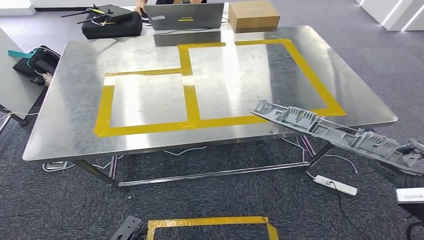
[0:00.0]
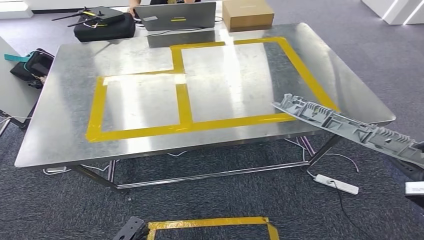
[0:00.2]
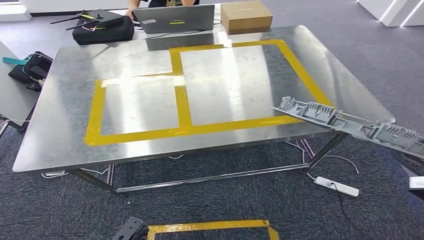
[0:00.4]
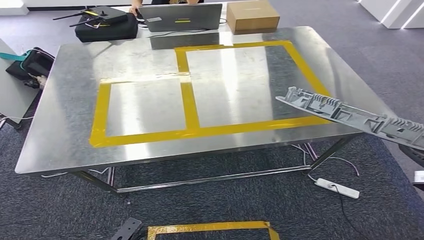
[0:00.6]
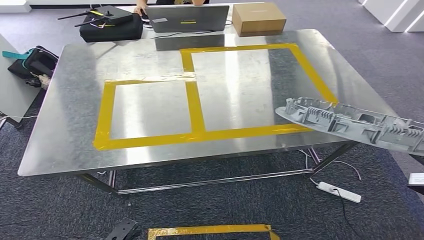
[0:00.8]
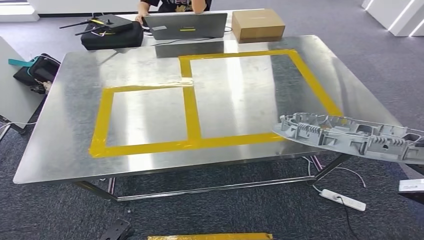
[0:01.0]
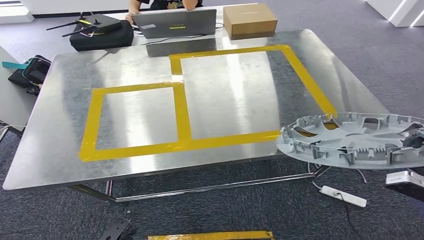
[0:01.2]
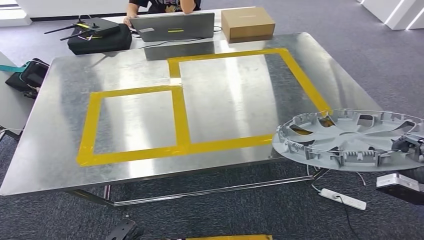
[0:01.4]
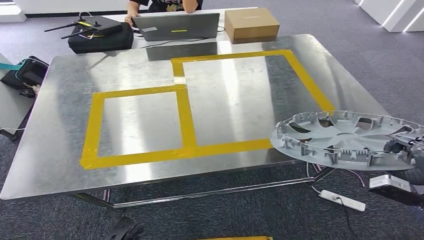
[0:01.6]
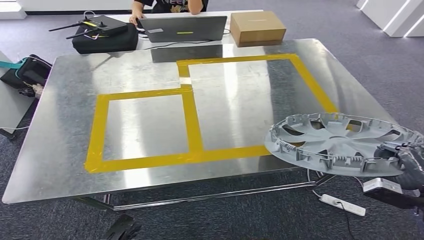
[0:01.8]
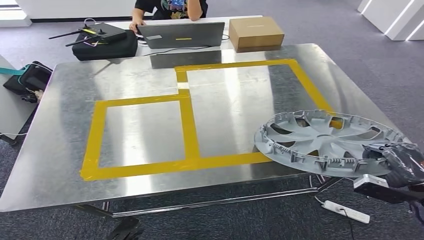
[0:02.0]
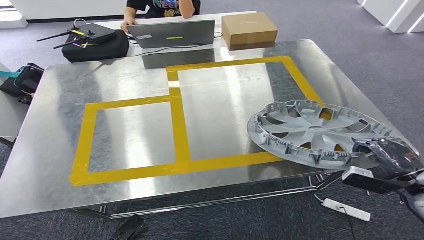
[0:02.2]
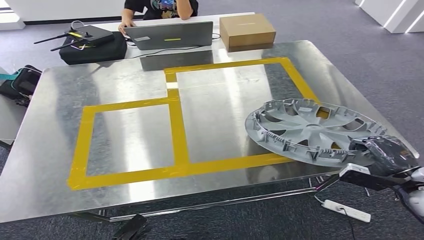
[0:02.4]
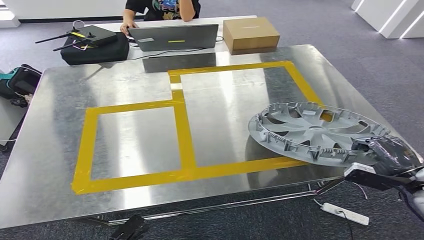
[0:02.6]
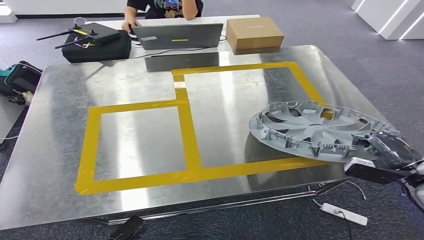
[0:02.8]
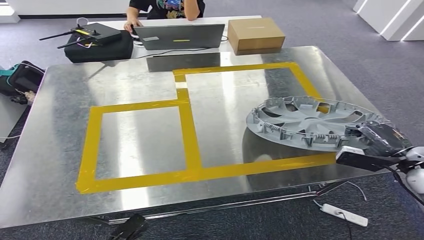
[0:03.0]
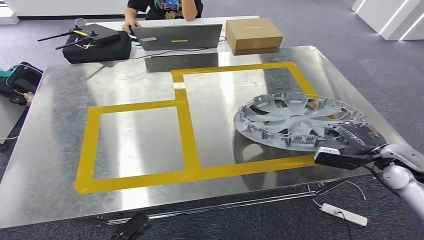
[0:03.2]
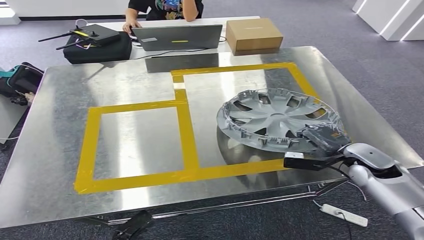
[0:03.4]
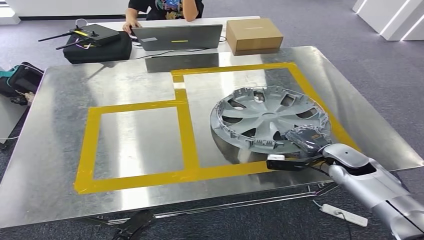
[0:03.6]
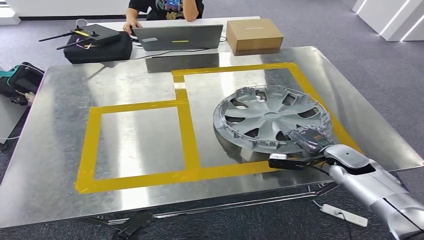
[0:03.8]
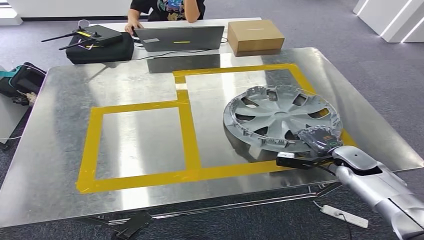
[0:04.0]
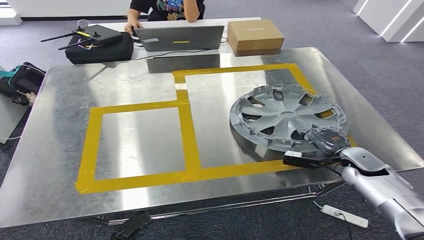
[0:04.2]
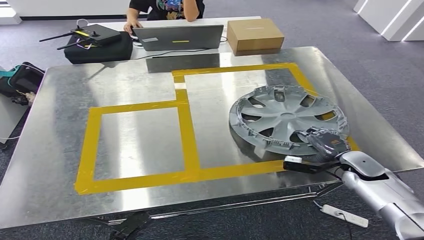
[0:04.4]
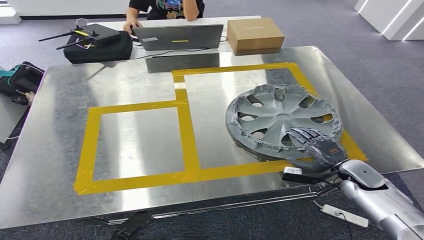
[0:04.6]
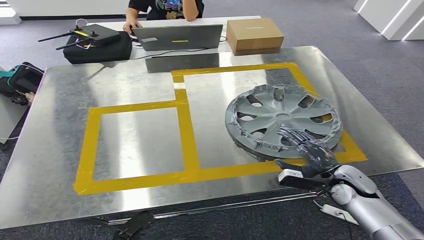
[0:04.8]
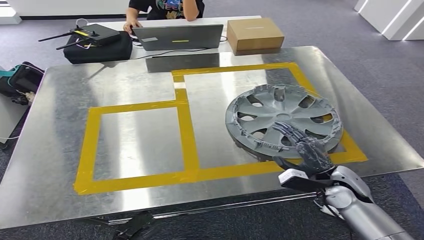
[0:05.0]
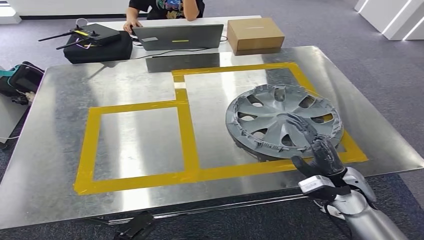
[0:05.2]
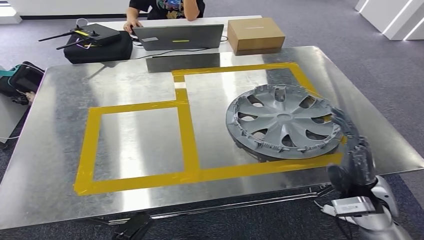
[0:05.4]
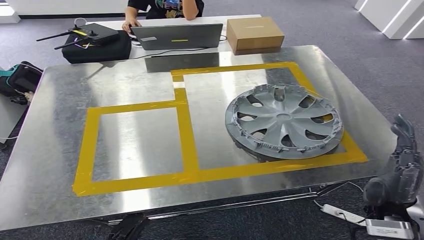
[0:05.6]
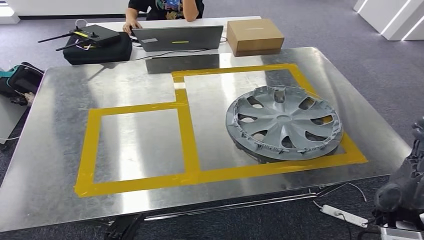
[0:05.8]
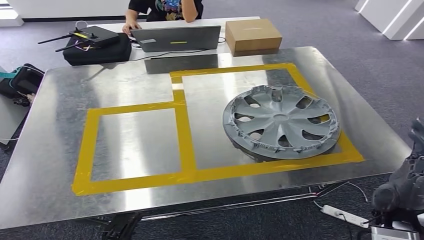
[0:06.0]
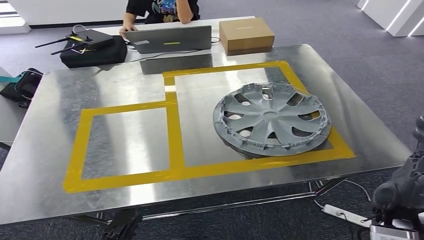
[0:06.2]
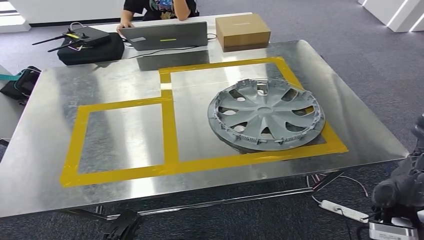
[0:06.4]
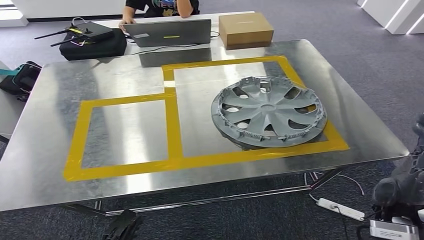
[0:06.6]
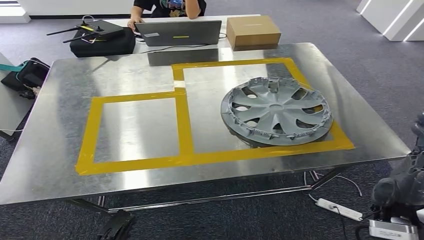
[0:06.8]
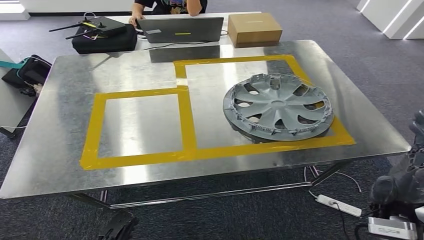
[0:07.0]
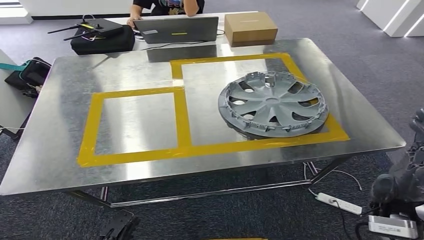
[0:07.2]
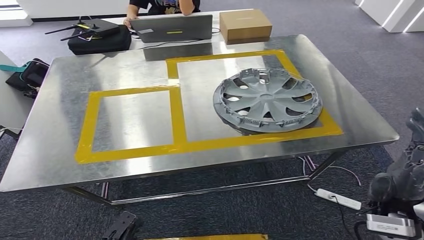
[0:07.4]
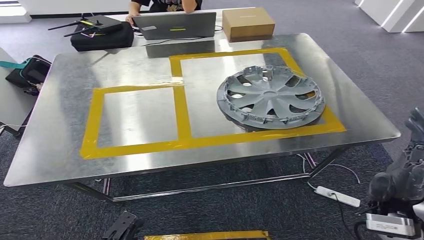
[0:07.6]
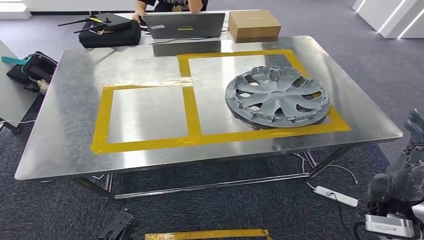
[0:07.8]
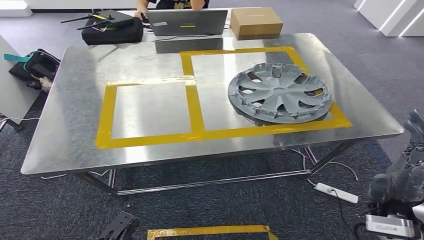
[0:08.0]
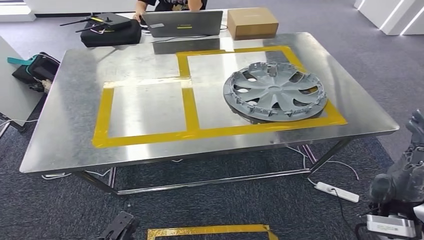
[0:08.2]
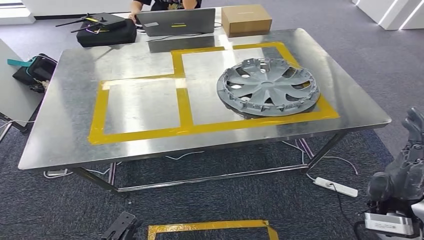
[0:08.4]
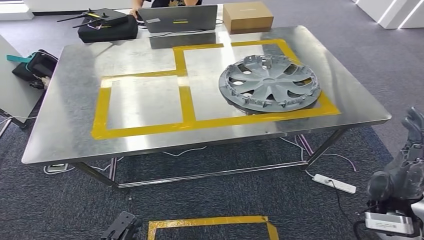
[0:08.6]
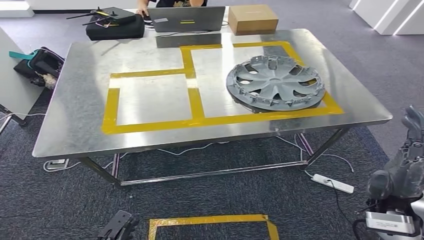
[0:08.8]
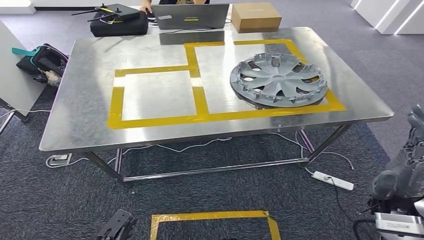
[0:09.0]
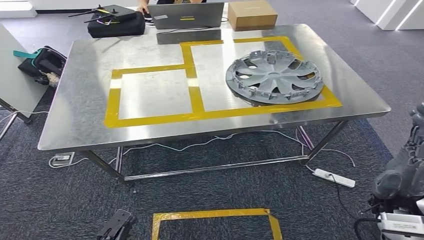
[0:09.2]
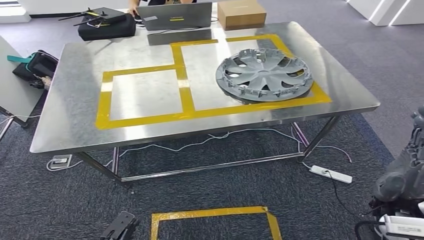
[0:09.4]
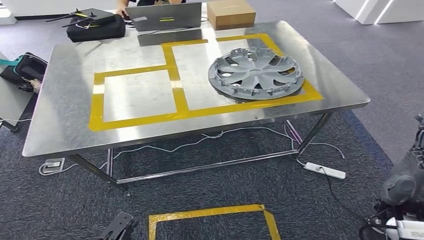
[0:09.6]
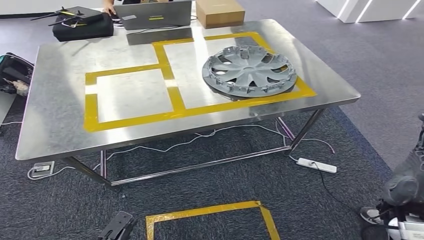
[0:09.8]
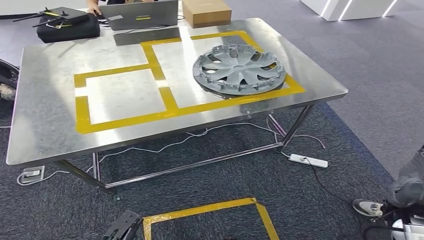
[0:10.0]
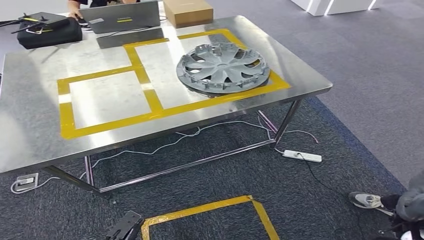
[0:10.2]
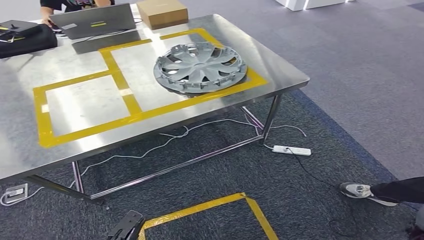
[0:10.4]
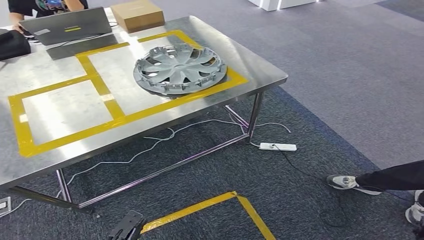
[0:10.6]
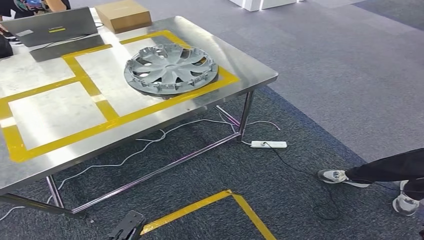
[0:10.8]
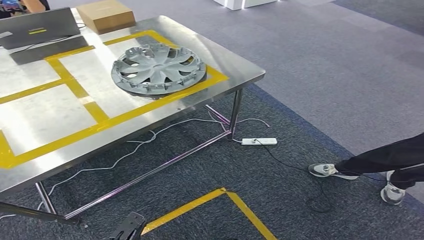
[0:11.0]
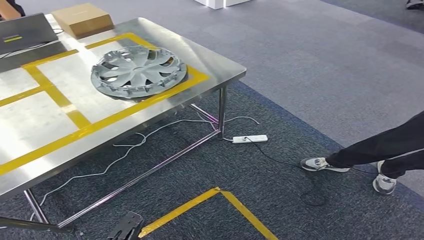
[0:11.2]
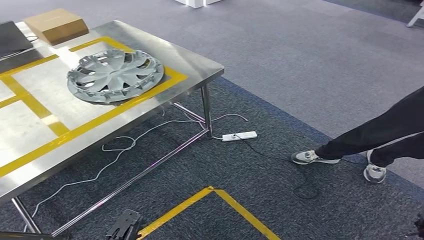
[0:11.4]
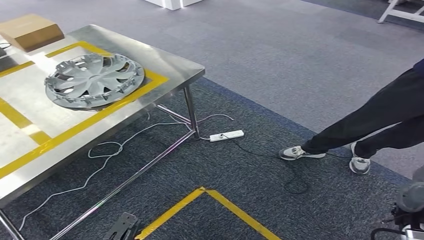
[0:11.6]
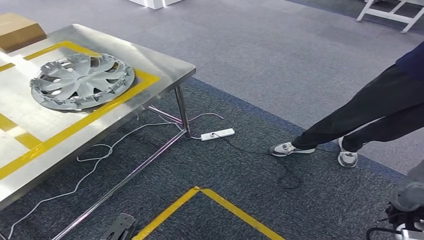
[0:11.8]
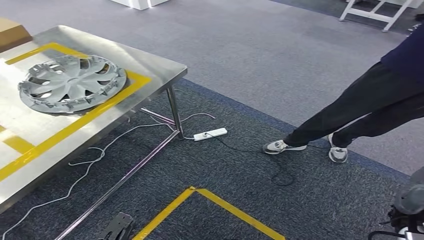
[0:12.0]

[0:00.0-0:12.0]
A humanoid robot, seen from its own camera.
Step, 0:00.0 to 0:08.0: Insert the small parts into the corresponding slots on the workbench.
0:03.0 to 0:04.4: The right hand travels downward and to the left by approximately 15 cm.
0:04.4 to 0:06.0: The right hand goes roughly 20 cm backward and upward.

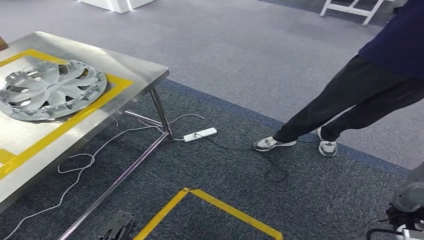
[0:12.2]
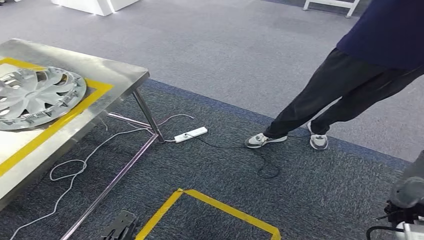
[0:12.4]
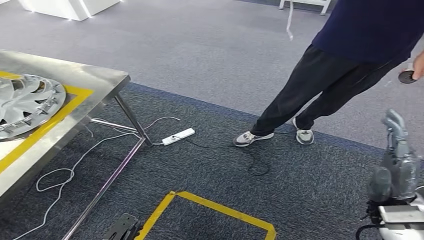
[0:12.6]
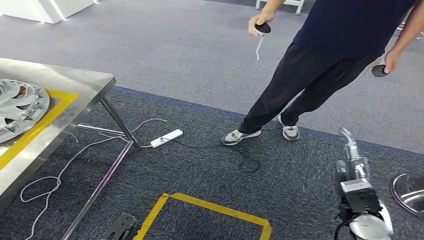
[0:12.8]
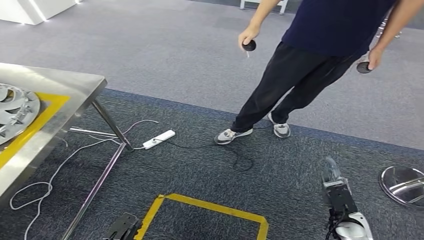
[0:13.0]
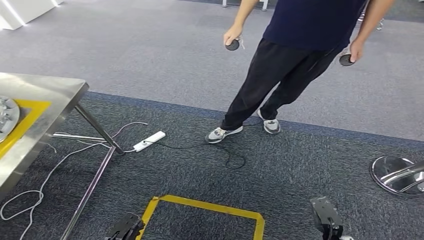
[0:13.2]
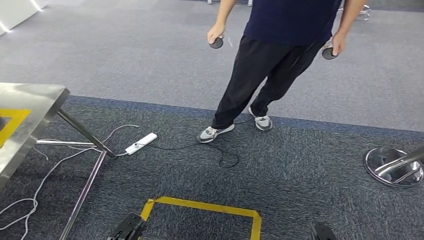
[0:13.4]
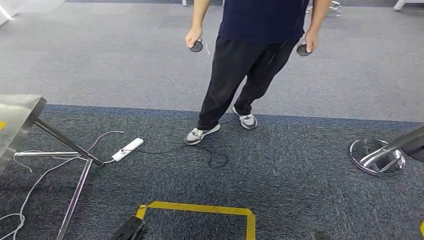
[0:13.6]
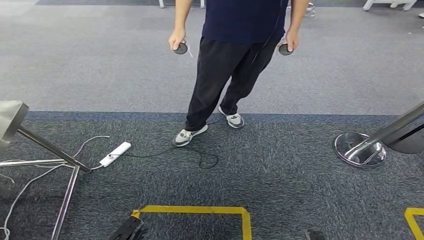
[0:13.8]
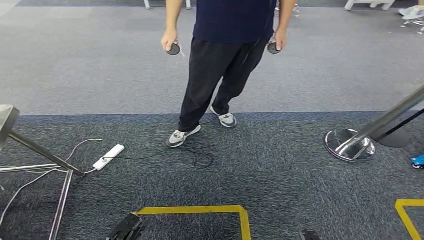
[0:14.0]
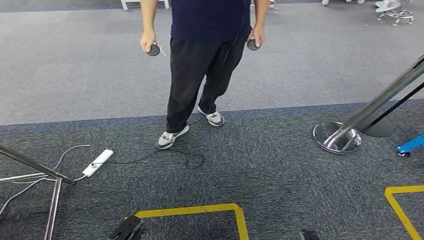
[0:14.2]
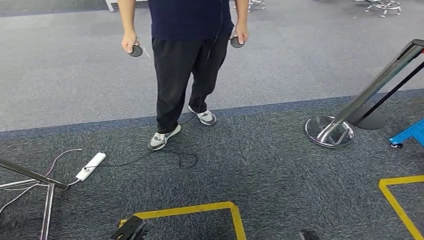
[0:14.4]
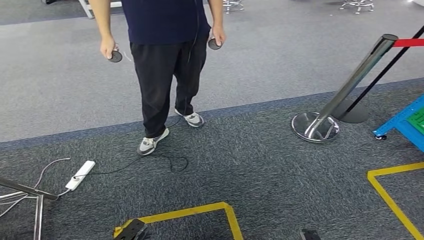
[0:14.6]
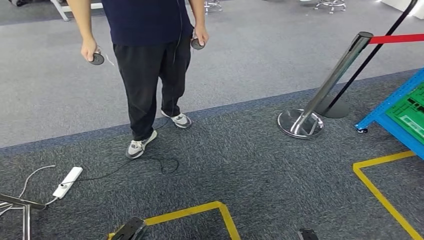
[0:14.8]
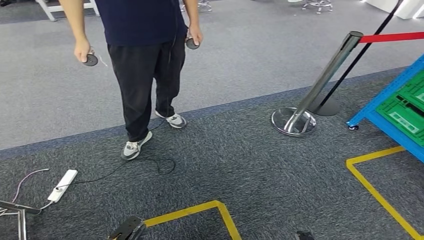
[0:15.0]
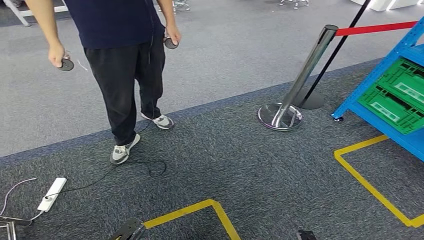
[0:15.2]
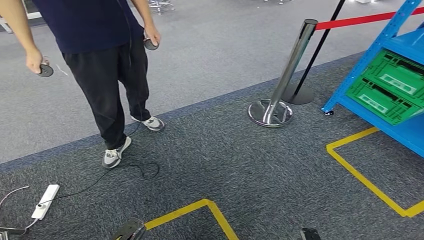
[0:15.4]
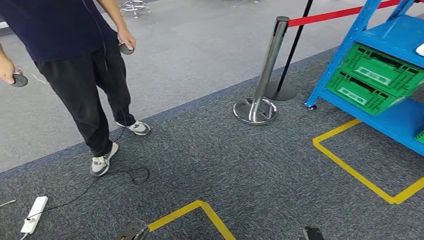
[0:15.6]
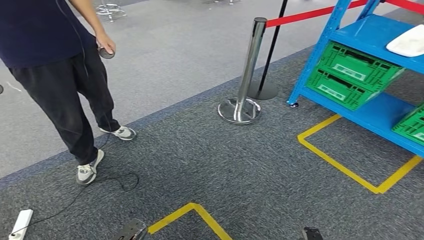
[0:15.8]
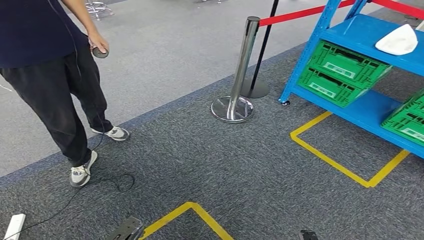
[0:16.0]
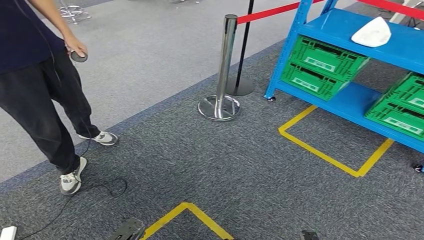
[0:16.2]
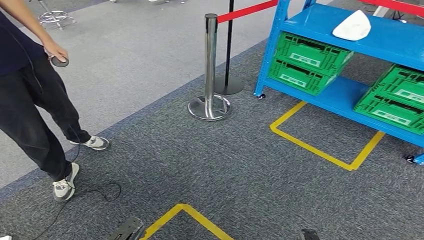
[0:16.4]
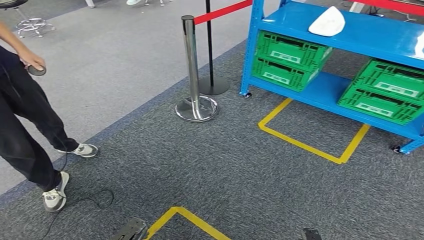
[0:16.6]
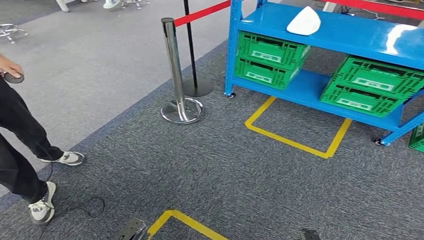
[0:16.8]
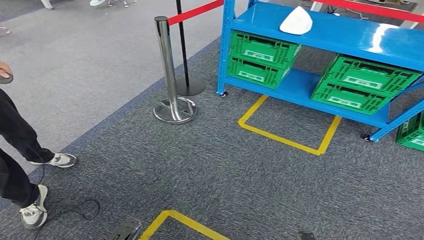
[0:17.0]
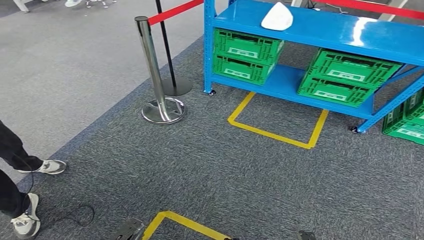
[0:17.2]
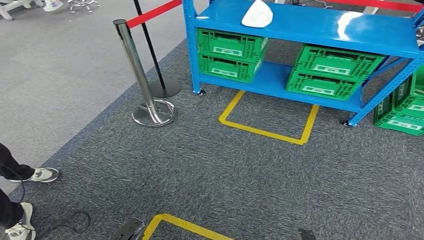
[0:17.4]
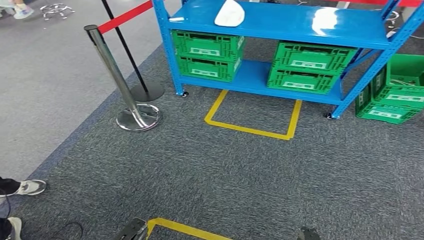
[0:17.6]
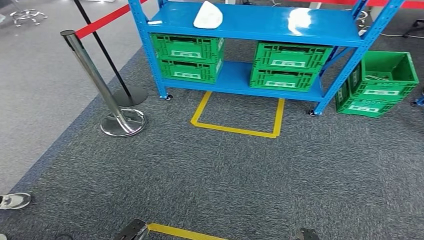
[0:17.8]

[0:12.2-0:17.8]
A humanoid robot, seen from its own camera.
Step, 0:12.2 to 0:17.8: Return to the initial position at the workbench.
